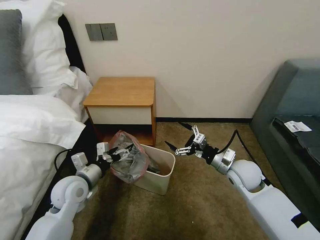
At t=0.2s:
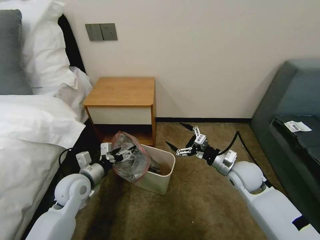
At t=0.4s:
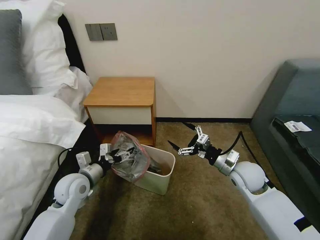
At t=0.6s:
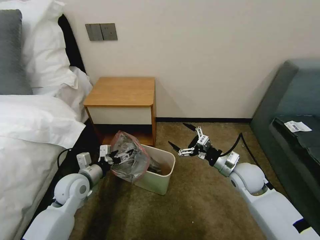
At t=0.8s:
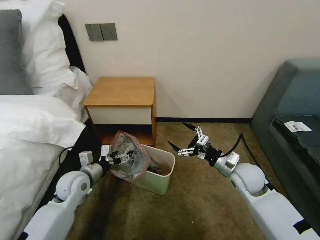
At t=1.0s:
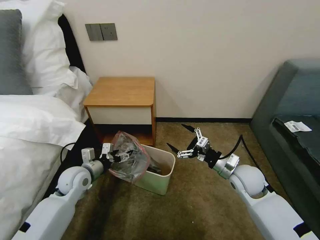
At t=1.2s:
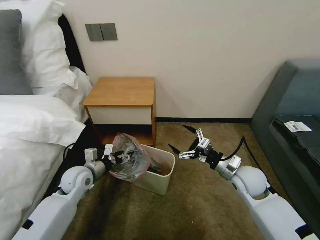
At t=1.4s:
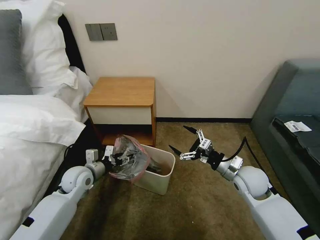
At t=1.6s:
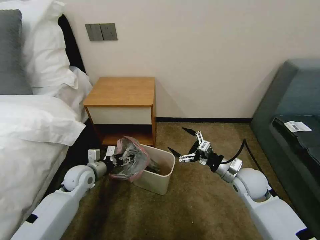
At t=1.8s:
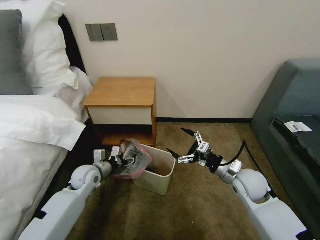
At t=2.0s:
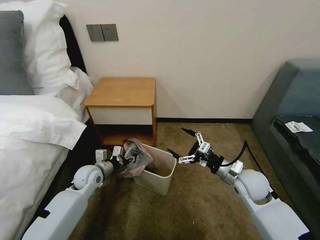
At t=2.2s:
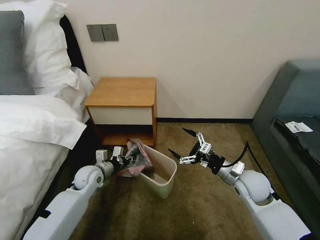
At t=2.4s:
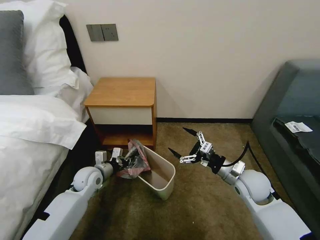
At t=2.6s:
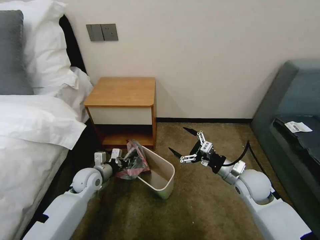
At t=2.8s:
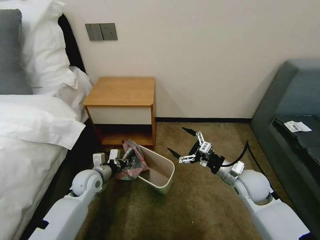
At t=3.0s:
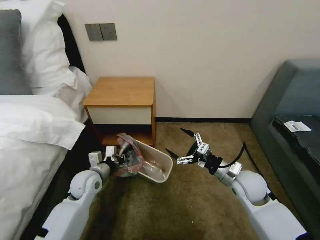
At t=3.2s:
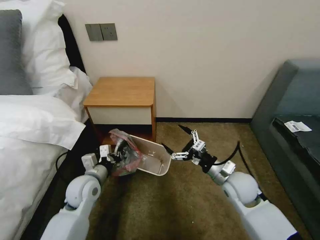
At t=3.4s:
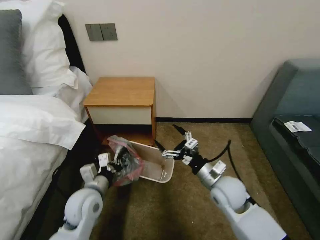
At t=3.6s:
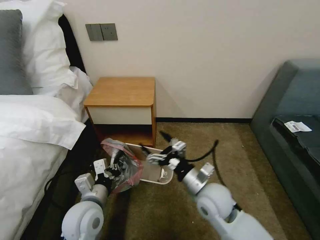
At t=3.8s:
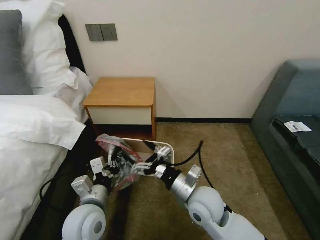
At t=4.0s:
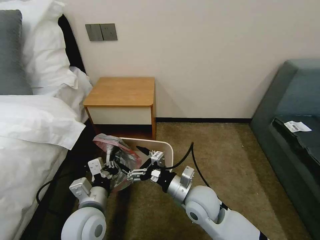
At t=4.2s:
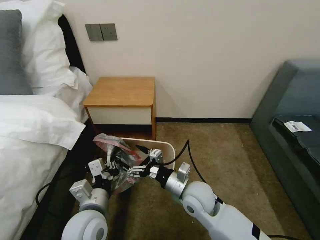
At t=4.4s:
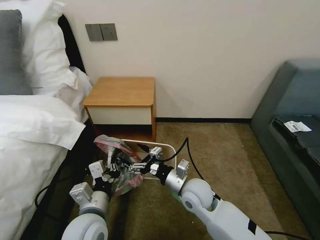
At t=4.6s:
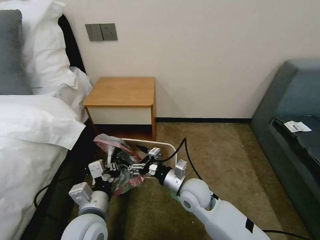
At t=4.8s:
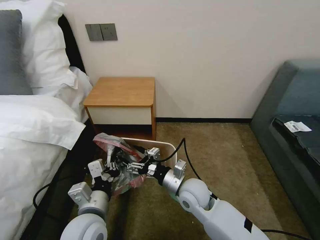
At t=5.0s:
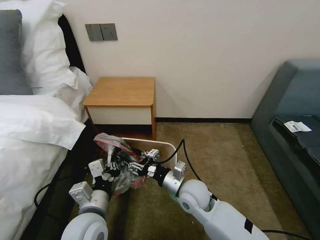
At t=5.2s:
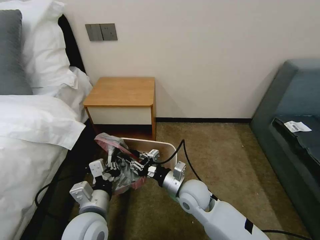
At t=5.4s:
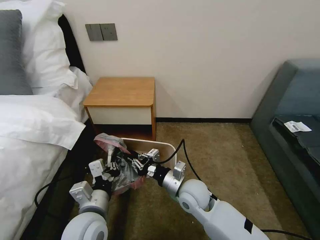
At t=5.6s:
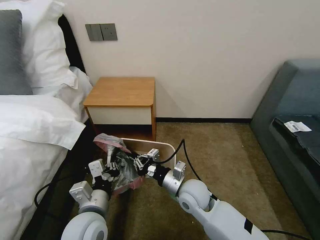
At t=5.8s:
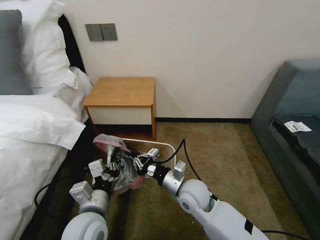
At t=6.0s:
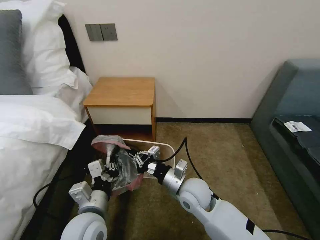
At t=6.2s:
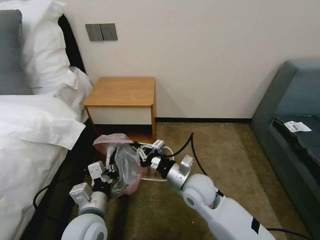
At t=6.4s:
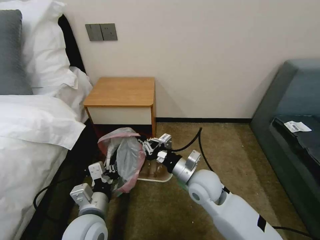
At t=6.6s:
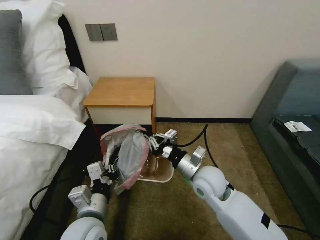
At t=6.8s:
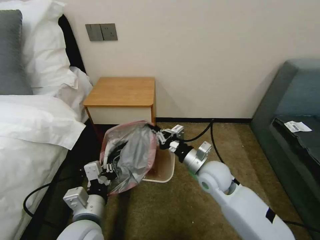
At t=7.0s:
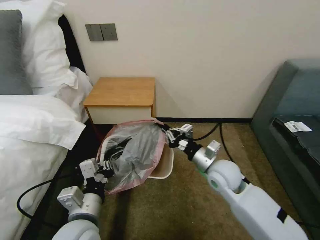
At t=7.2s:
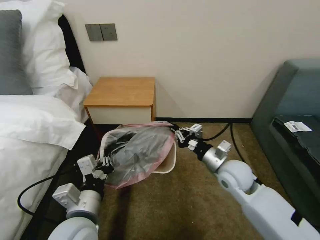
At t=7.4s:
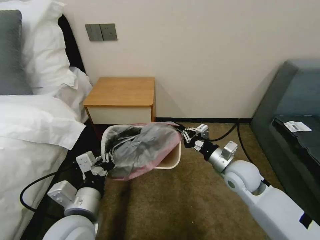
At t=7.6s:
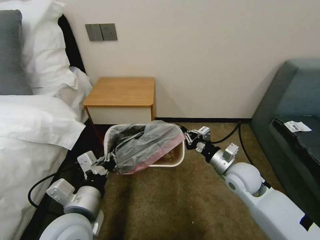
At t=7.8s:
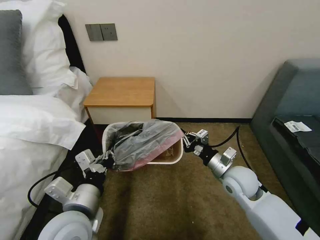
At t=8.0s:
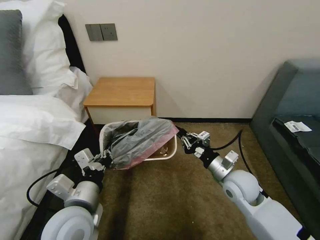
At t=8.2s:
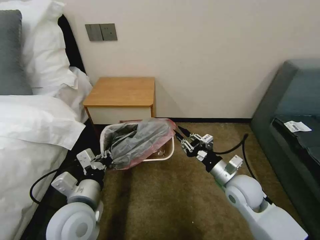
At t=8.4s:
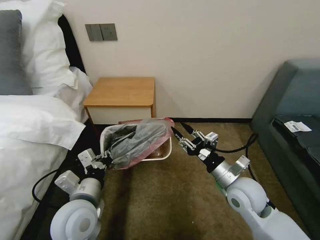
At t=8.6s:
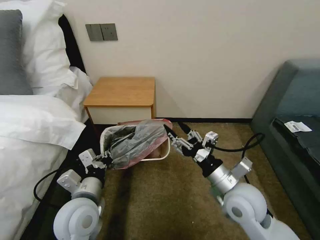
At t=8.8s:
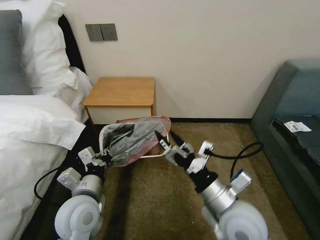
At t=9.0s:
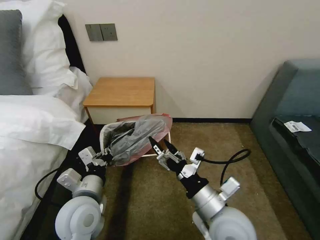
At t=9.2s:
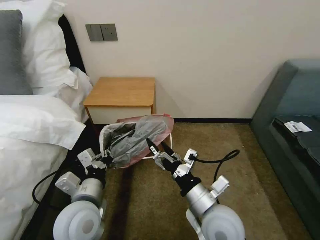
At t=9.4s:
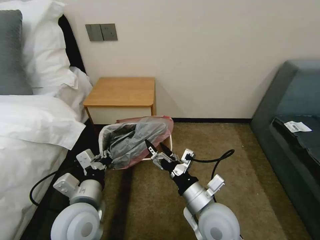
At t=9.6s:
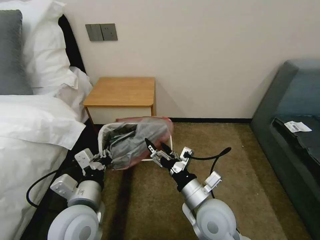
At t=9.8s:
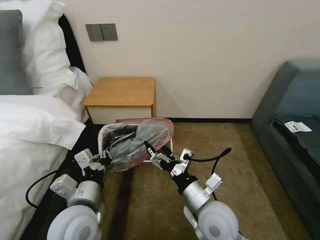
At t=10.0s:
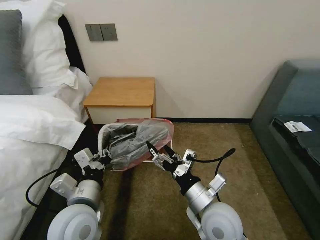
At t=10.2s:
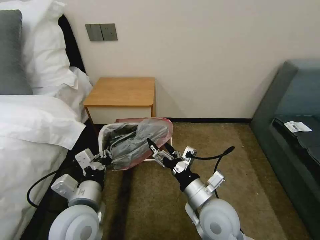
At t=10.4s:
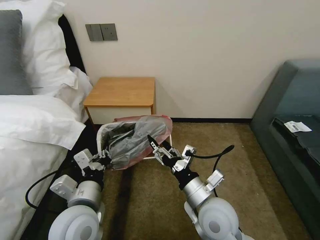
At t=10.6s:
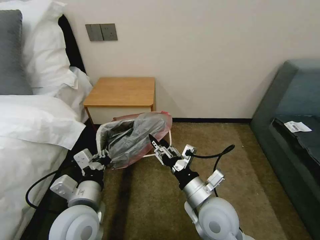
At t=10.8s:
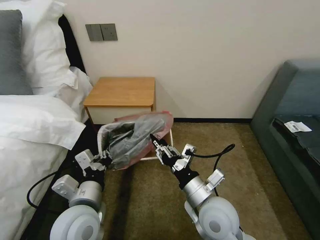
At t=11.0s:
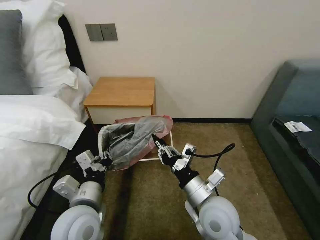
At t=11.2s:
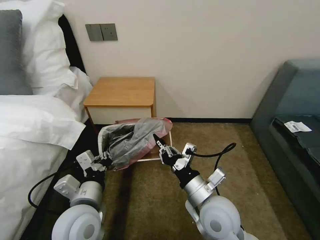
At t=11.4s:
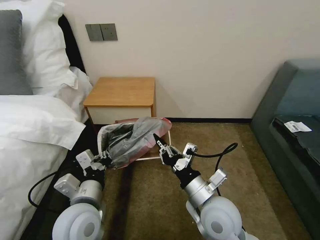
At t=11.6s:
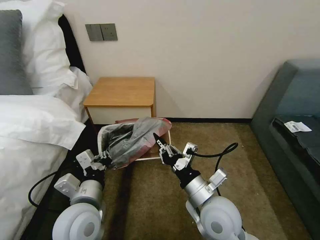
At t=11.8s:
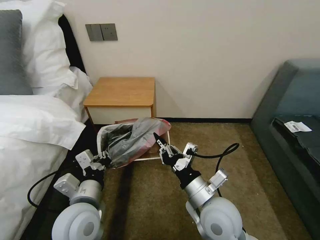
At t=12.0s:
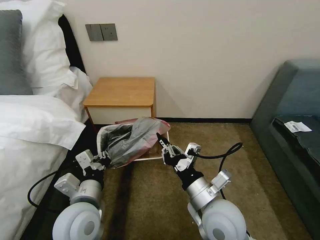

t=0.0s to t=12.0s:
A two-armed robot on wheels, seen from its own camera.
Task of the whole recording: Pick up the garbage bag from the table and place it over the trash can.
t=0.0s to t=1.6s: The left gripper moves forward and downward, roughly 10 cm.
t=1.6s to t=3.0s: The left gripper closes its fingers.
t=3.0s to t=4.4s: The right gripper shifts roughly 15 cm to the left; the left gripper travels backward, to the right and upward by about 20 cm.
t=4.4s to t=6.0s: The right gripper closes up.
t=6.0s to t=7.6s: The right gripper heads to the right, covering some 15 cm, while the left gripper heads upward, covering roughly 5 cm.
t=7.6s to t=9.0s: The right gripper moves backward and to the left, approximately 15 cm, and opens up. Meanwhile the left gripper shifts by approximately 5 cm.
t=9.0s to t=10.4s: There are only small adjustments of the grippers.
t=10.4s to t=12.0s: The right gripper closes.

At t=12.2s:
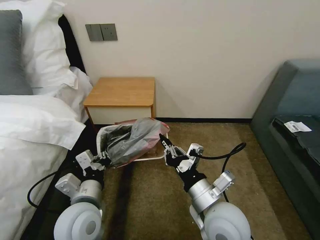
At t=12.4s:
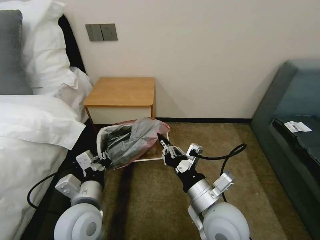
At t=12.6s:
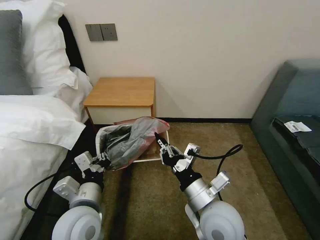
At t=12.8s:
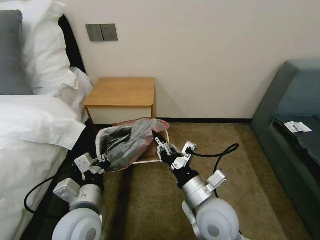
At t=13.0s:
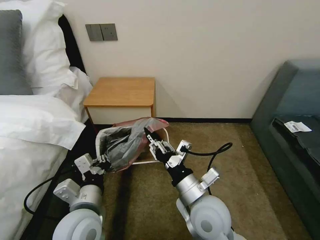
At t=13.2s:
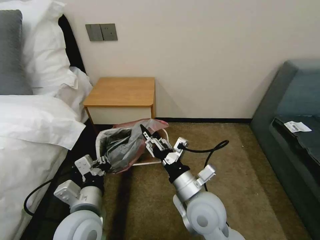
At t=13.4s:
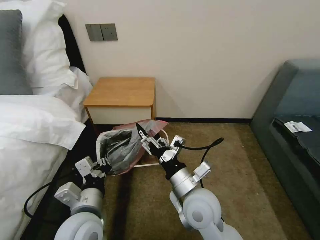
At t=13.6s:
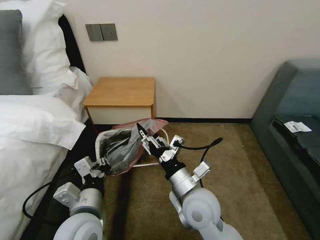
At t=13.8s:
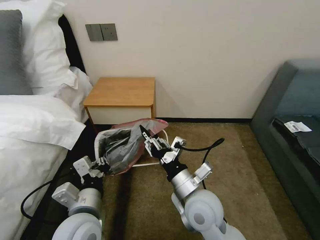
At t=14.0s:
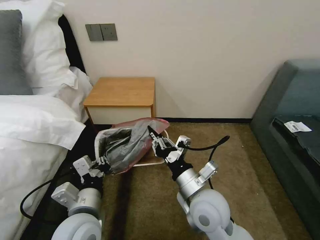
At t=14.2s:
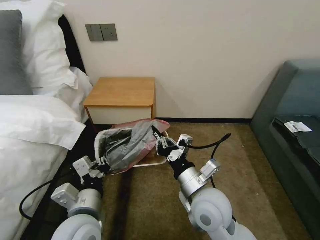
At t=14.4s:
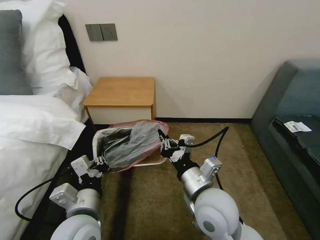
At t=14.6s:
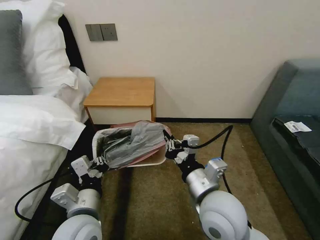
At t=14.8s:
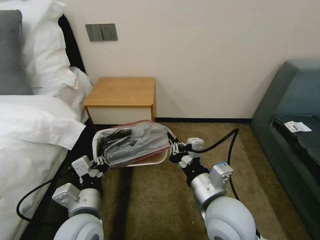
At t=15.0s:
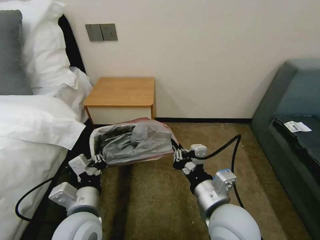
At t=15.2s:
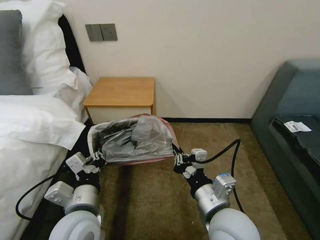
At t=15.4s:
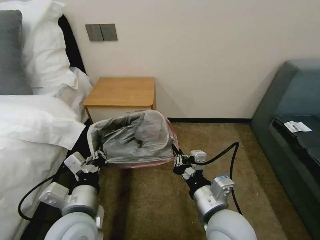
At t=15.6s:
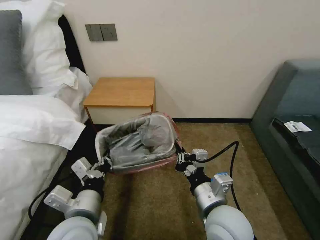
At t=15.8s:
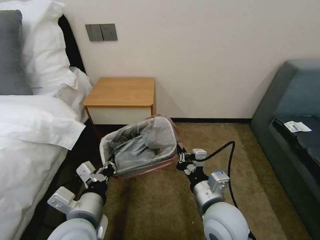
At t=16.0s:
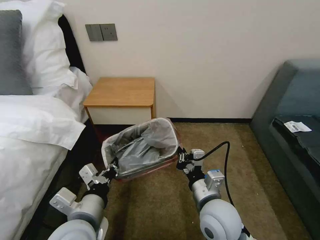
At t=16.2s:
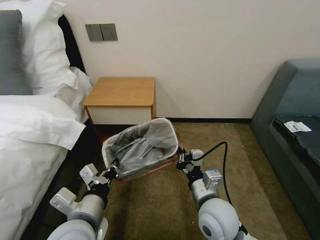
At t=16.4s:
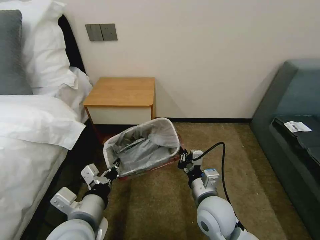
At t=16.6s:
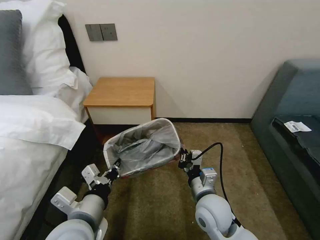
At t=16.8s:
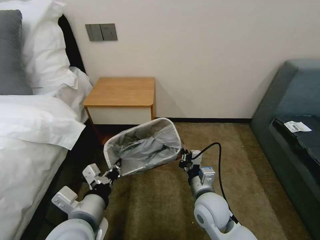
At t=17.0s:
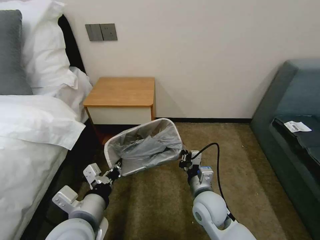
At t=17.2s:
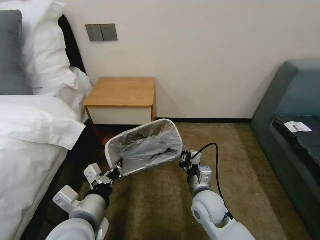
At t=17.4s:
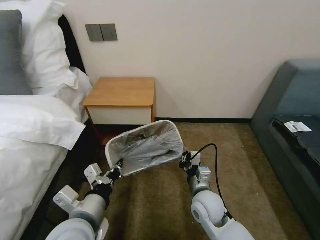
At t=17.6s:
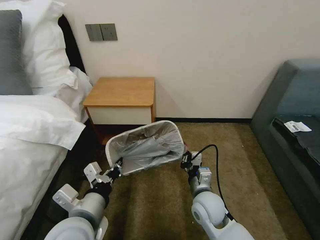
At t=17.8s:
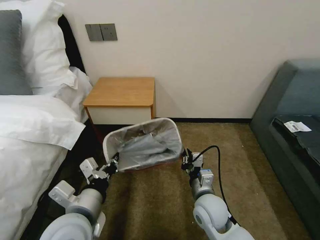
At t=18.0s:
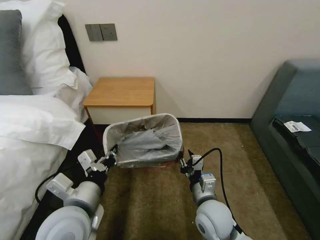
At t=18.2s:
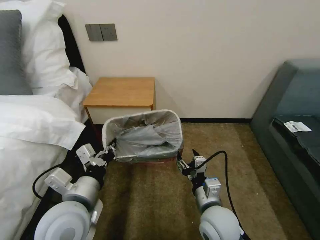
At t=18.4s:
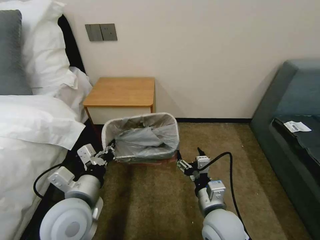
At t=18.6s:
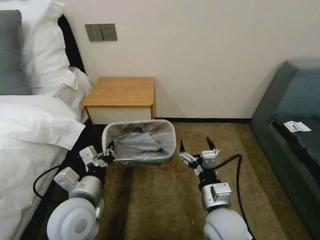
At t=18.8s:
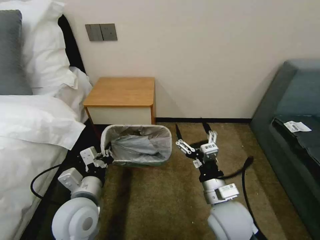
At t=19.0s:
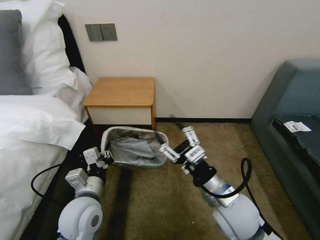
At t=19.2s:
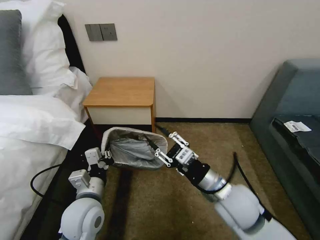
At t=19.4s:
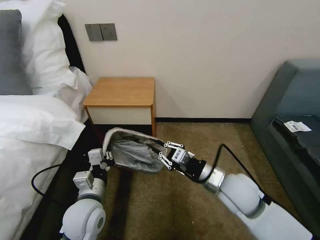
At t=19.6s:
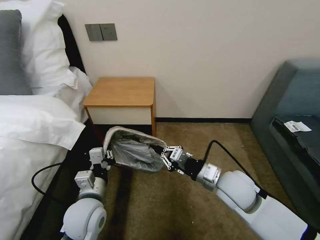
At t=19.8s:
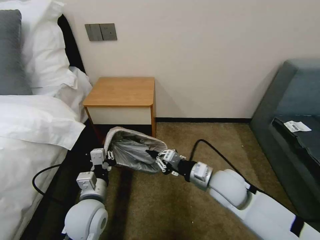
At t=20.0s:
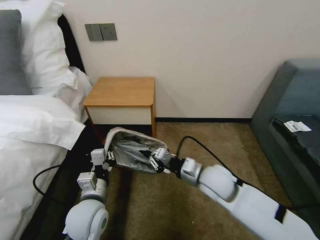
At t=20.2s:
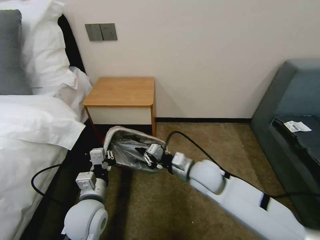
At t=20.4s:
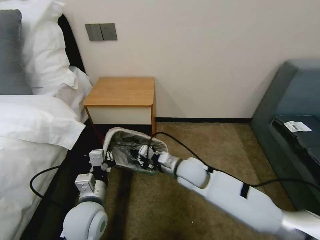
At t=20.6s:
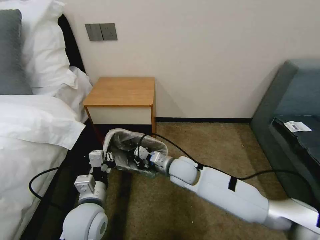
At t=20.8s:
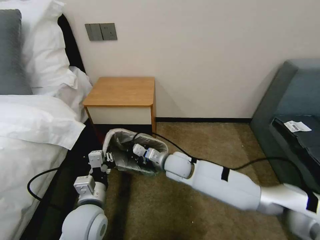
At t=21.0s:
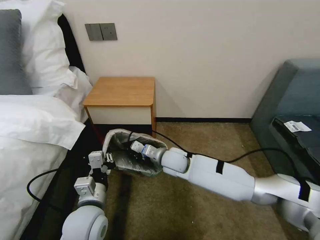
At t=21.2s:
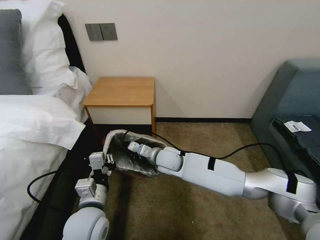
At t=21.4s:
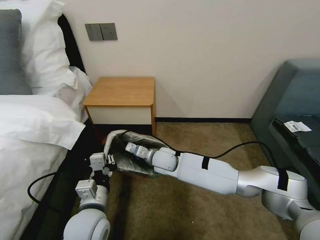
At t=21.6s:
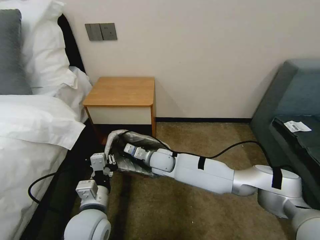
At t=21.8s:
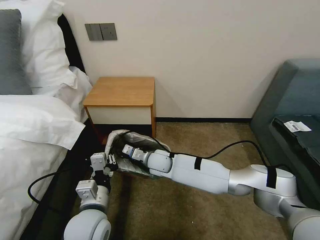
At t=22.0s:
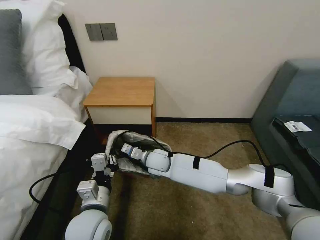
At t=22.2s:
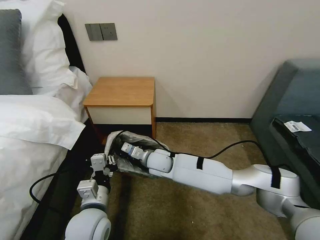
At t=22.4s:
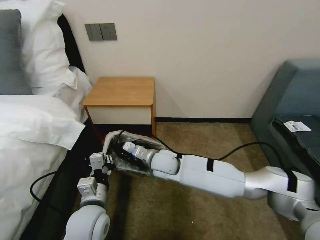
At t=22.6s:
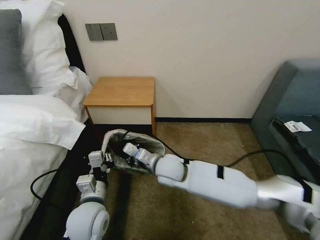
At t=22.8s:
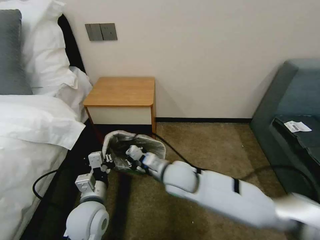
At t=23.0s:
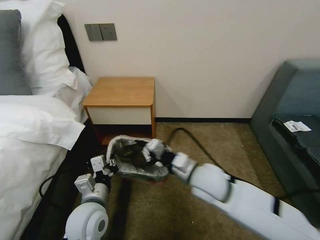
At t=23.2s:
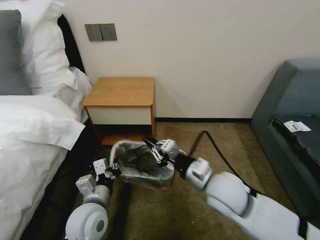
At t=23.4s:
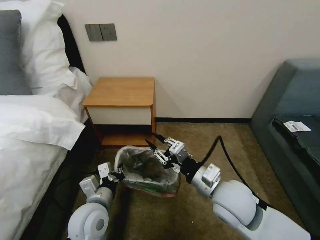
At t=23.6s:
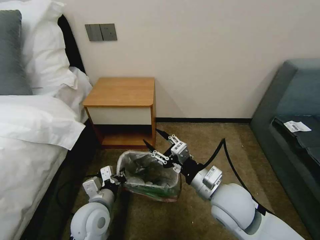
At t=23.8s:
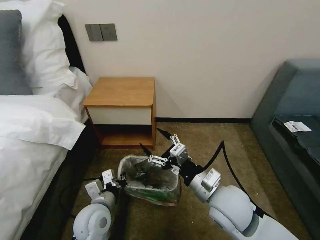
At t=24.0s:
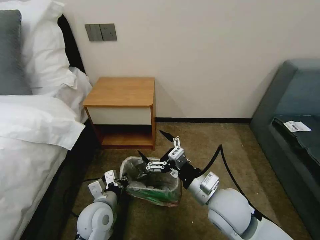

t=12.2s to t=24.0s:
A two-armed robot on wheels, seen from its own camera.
Task of the whole recording: Pick up the garbage bag from the table and place it over the trash can.
t=12.2s to t=13.6s: The right gripper moves roughly 5 cm, and opens.
t=13.6s to t=15.2s: The right gripper goes some 5 cm backward, and closes.
t=15.2s to t=16.6s: The right gripper goes approximately 10 cm downward and forward.
t=16.6s to t=18.2s: The right gripper opens.
t=18.2s to t=19.6s: The right gripper goes some 10 cm forward, to the right and upward, and closes. Meanwhile the left gripper heads downward, covering approximately 10 cm.
t=19.6s to t=21.0s: The right gripper moves to the left and forward, about 20 cm.
t=21.0s to t=22.6s: The right gripper changes place by approximately 5 cm.
t=22.6s to t=24.0s: The right gripper is displaced to the right and backward by some 20 cm, and opens; the left gripper moves roughly 5 cm.
